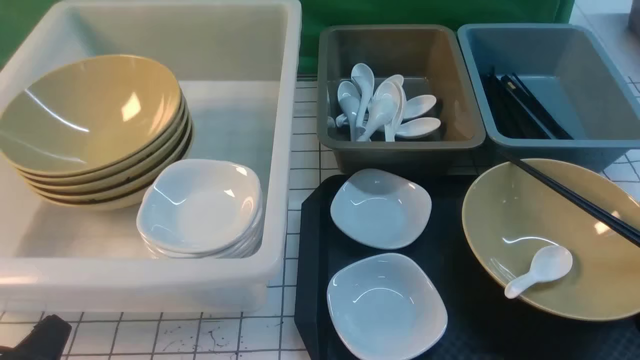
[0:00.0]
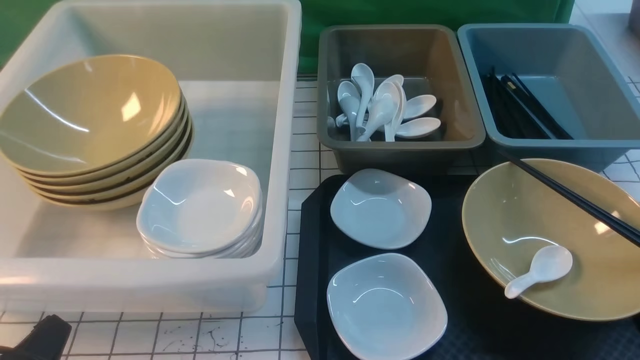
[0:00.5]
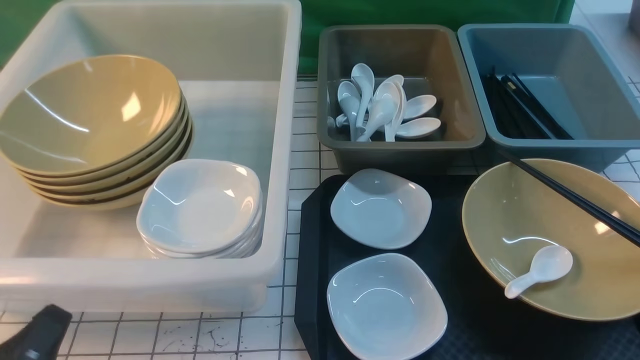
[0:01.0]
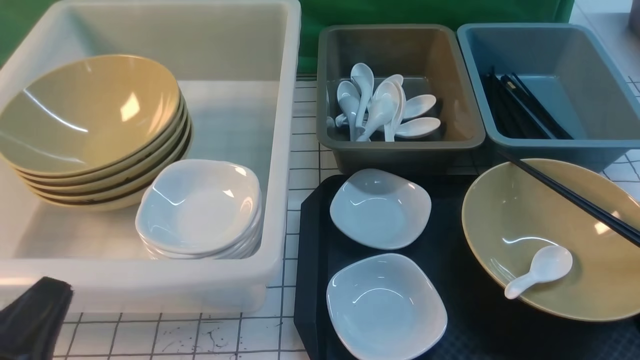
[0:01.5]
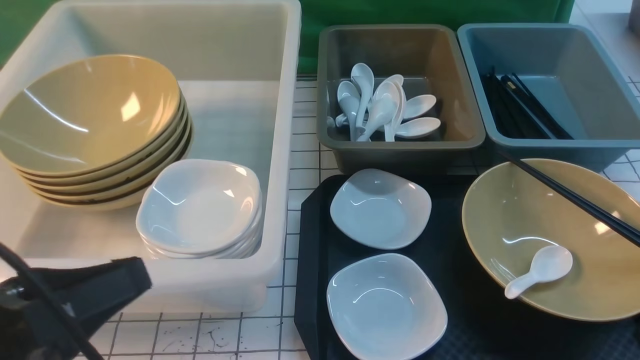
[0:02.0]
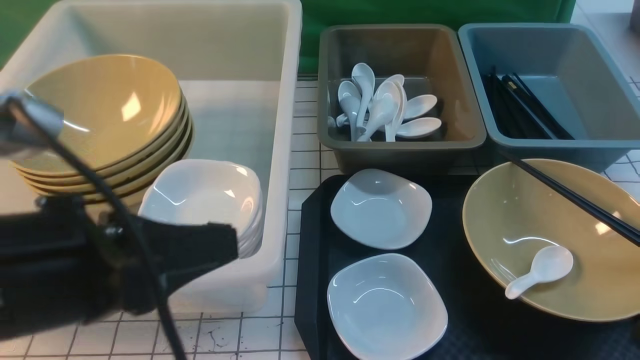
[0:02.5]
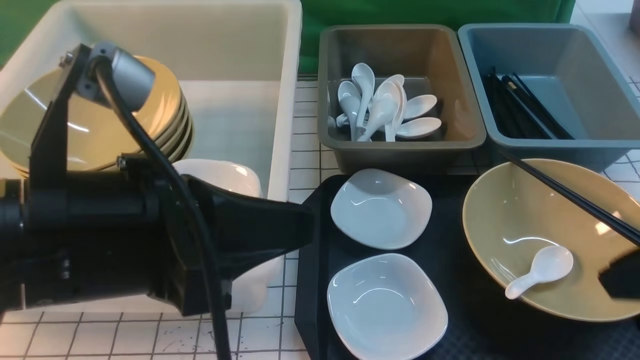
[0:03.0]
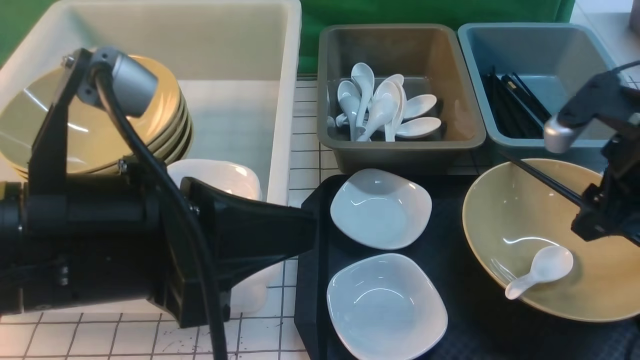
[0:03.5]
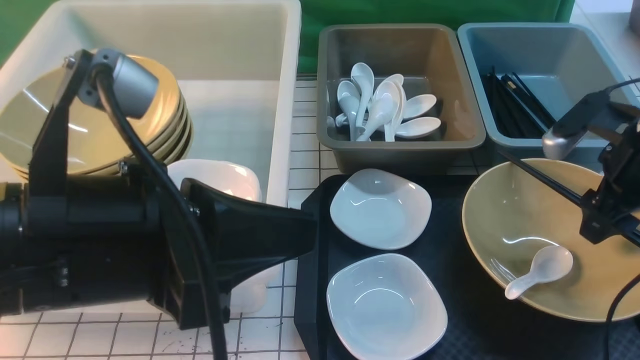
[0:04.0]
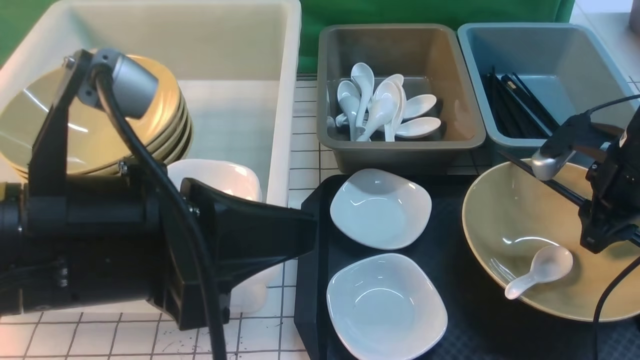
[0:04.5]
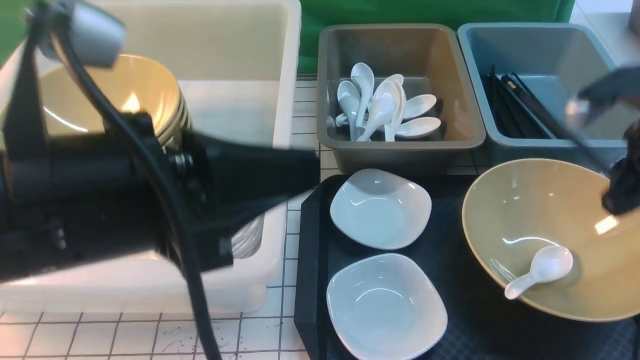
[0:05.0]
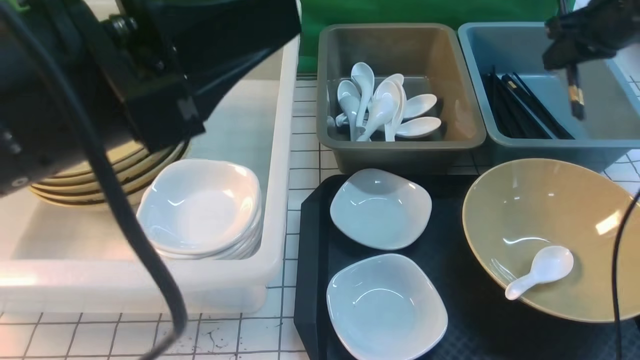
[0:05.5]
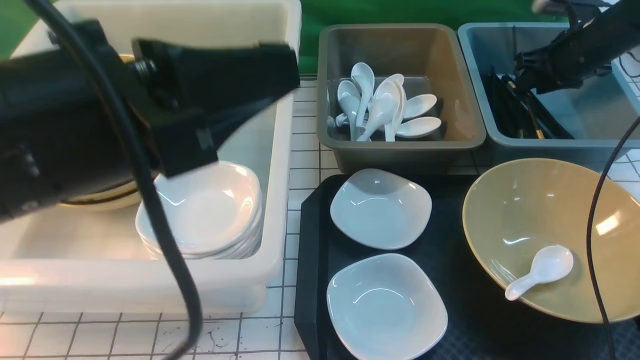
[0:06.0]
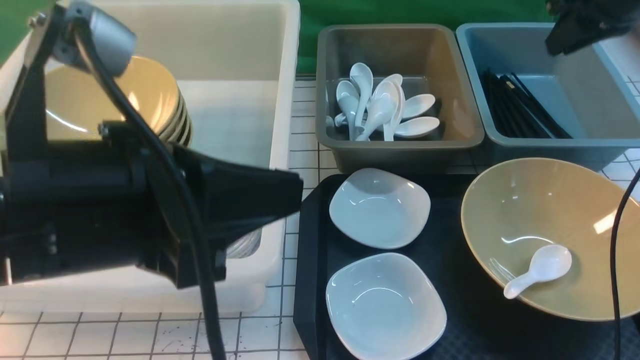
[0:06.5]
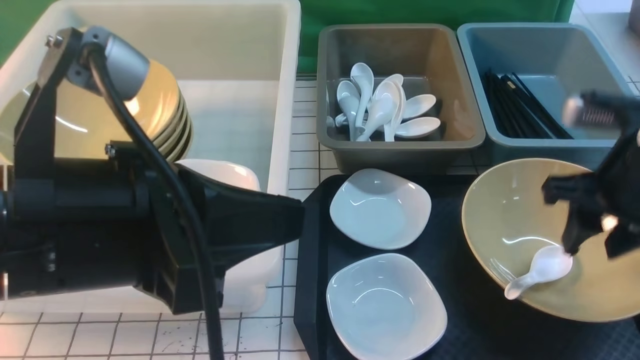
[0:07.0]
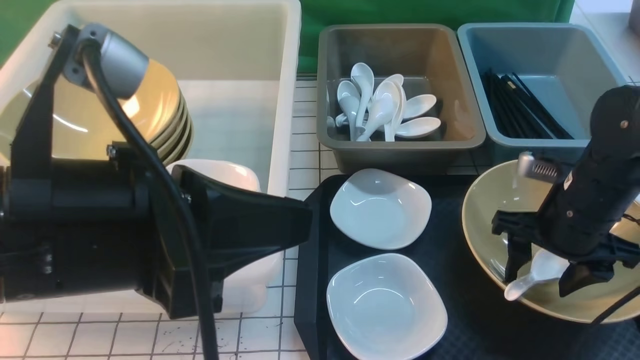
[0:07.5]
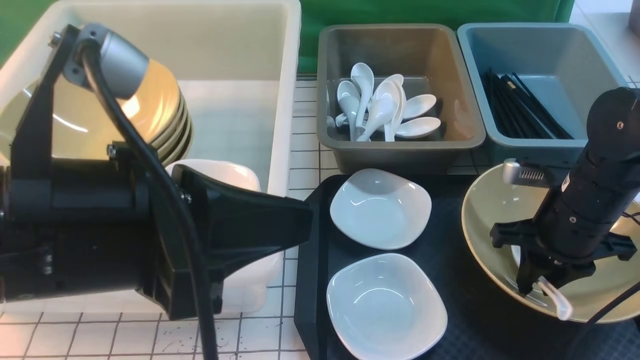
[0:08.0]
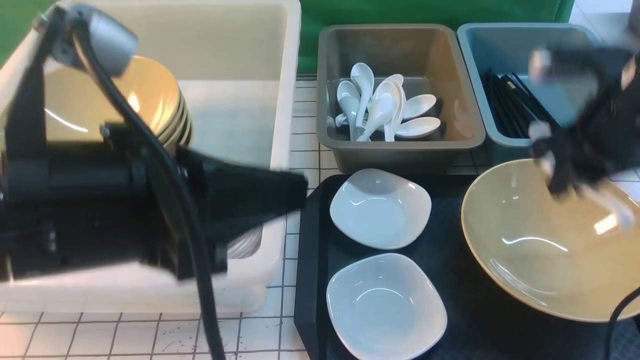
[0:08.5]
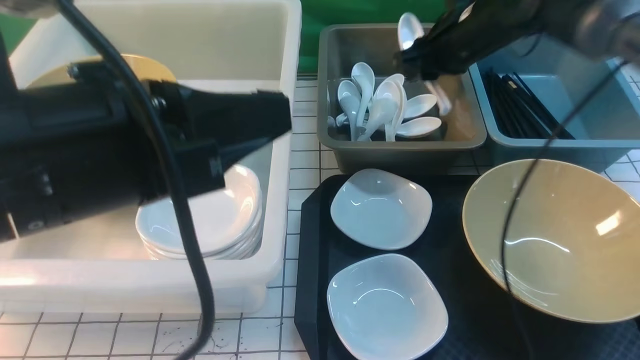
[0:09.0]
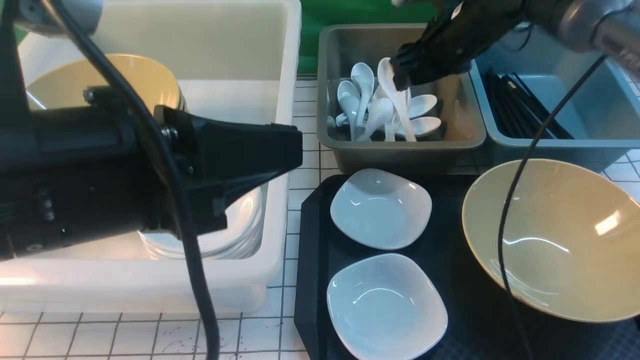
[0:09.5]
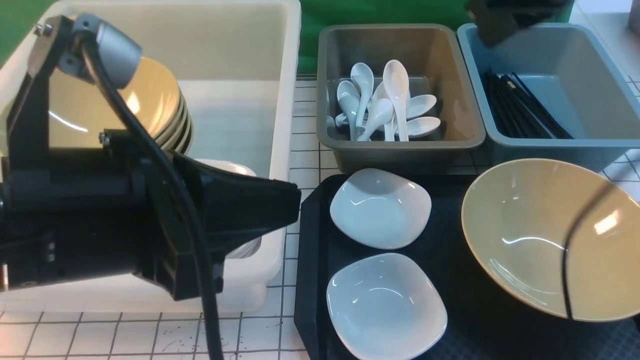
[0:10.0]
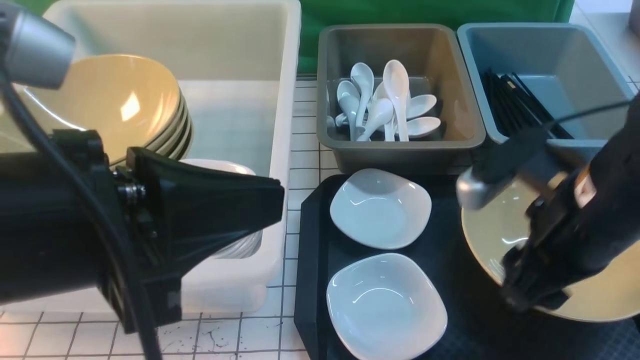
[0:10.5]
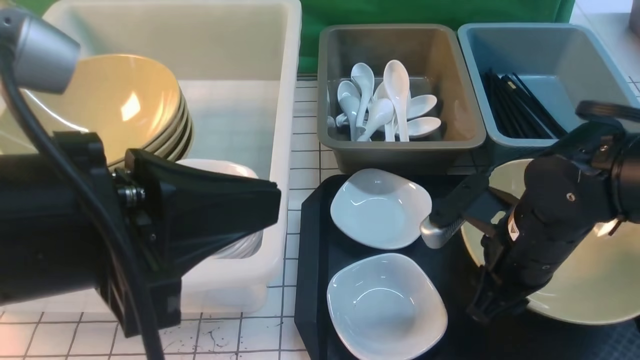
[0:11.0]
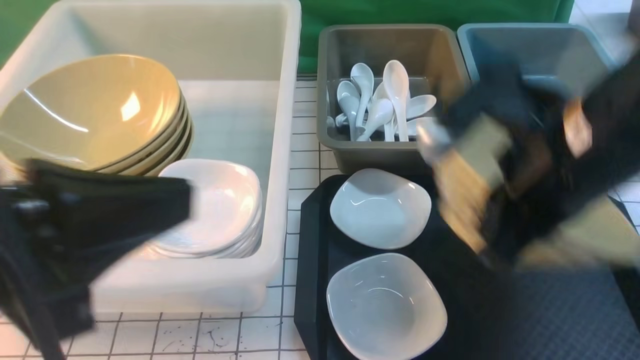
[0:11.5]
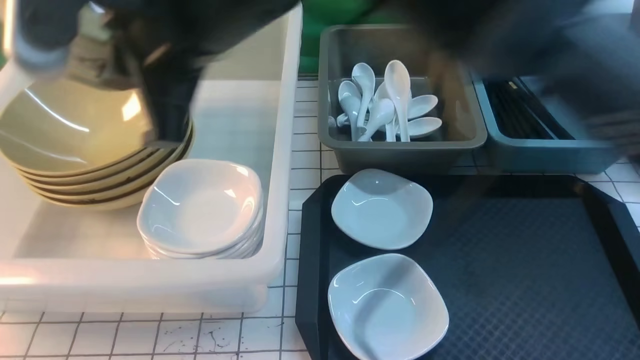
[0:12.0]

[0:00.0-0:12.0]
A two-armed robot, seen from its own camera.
Task of the whole recording: on white black table put chopsticks spoon bowls plates into blue grey white boxes.
Step, 0:00.0 to 0:05.0: use the right arm to grab the chopsticks.
Step, 0:05.5 to 0:06.0: use the right arm to put the chopsticks into the small storage box on the right.
Step, 0:06.5 to 0:08.0: use the right arm to grab the soup spoon in the middle.
Step, 0:08.5 to 0:09.0: use the right arm to put the soup spoon into the small storage box in the middle.
Step, 0:09.5 to 0:11.0: use the right arm to grab the yellow noodle bowl.
0:00.0 to 0:02.0: The left gripper goes roughly 15 cm upward.
0:02.0 to 0:04.0: The left gripper goes some 10 cm to the right and forward, while the right gripper is displaced forward by about 30 cm, and opens its fingers.
0:04.0 to 0:06.0: The right gripper shifts roughly 20 cm forward, and closes its fingers.
0:06.0 to 0:08.0: The right gripper is displaced backward and to the left by roughly 25 cm, and opens, then closes once more.
0:08.0 to 0:10.0: The right gripper moves upward, approximately 20 cm.
0:10.0 to 0:12.0: The right gripper shifts some 25 cm to the left, and opens and closes again. Meanwhile the left gripper heads to the left and backward, covering about 15 cm.

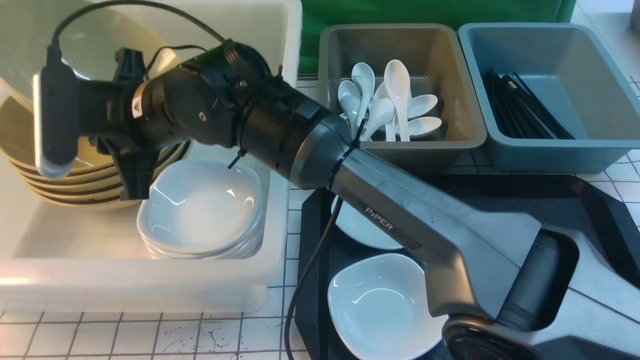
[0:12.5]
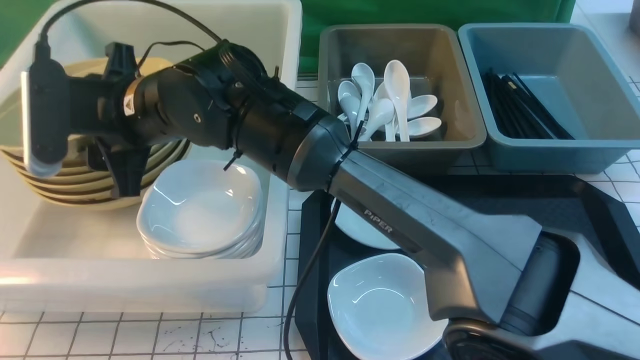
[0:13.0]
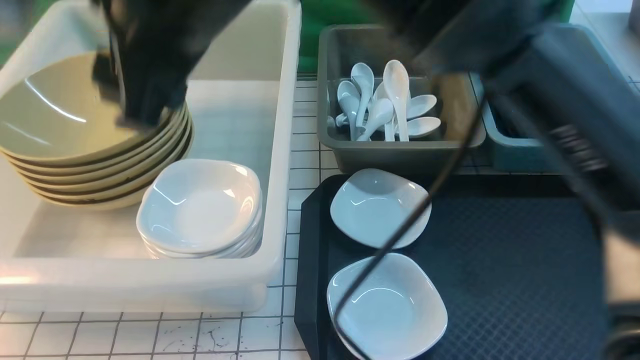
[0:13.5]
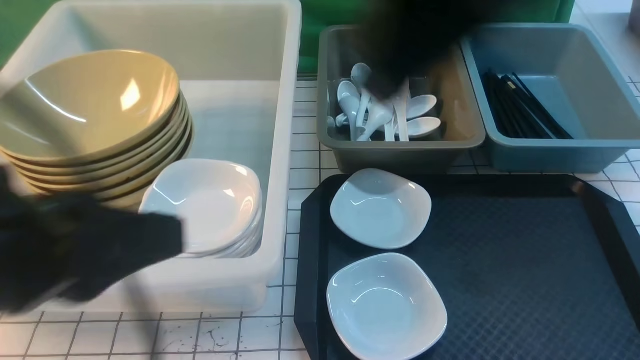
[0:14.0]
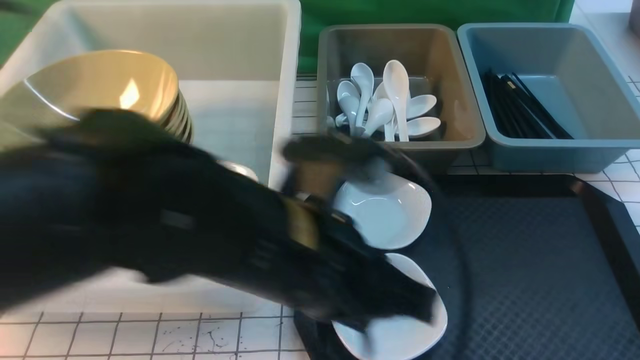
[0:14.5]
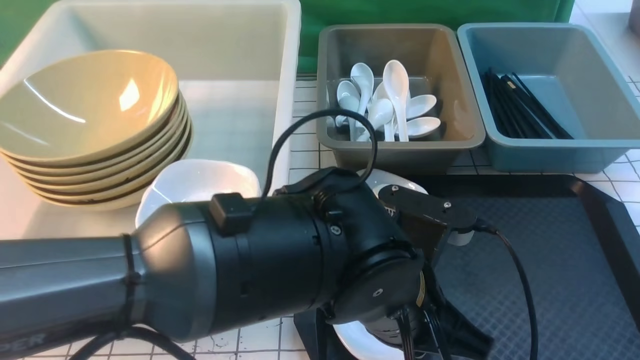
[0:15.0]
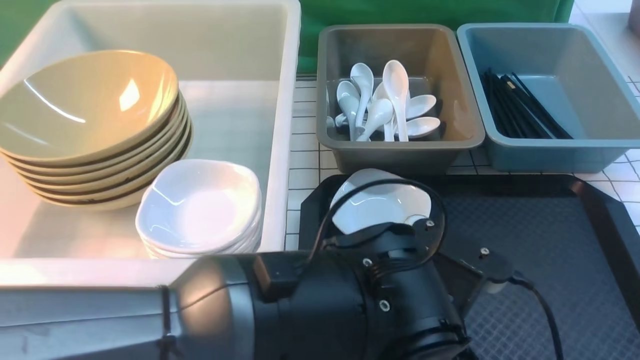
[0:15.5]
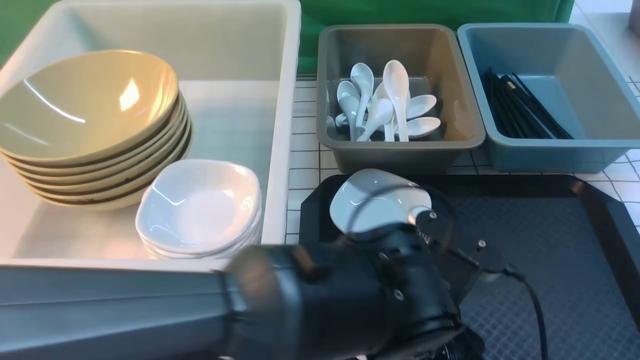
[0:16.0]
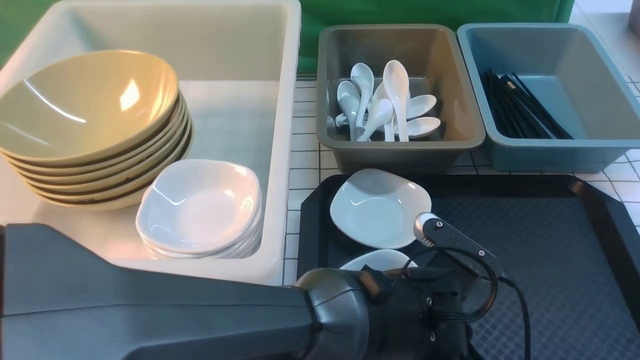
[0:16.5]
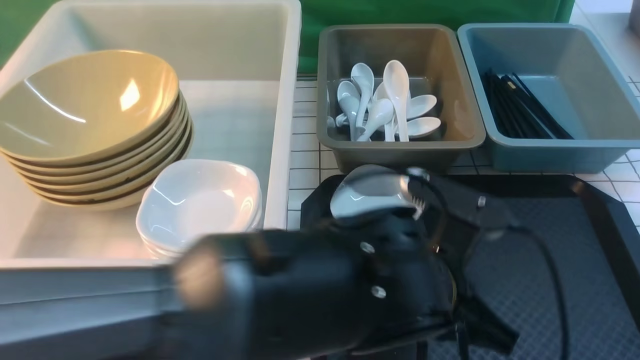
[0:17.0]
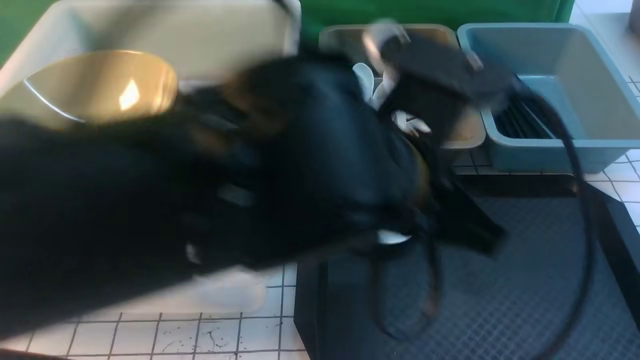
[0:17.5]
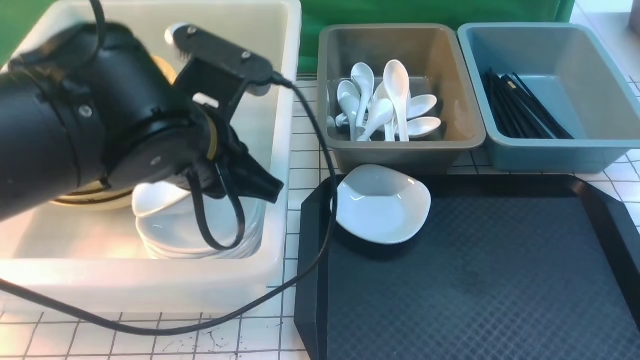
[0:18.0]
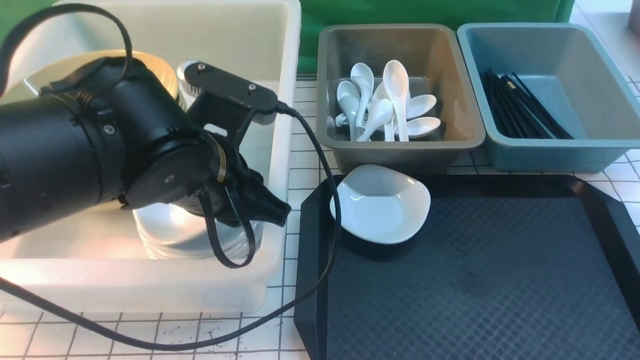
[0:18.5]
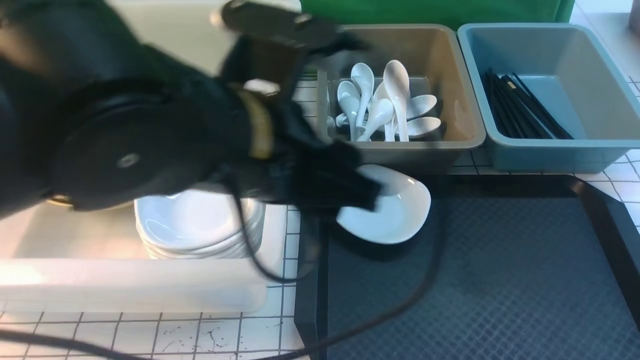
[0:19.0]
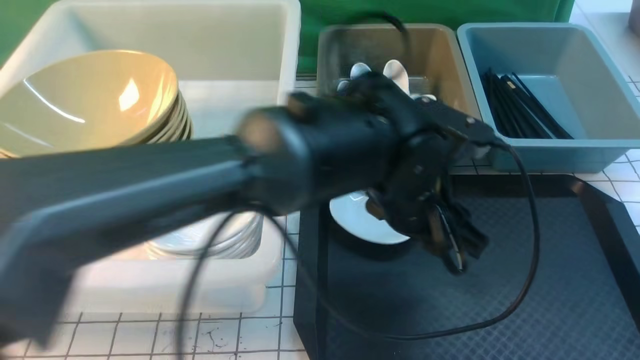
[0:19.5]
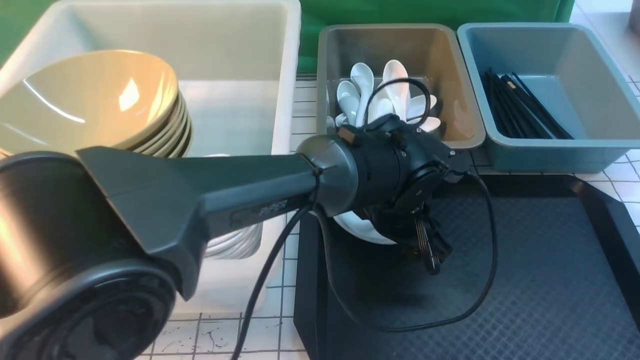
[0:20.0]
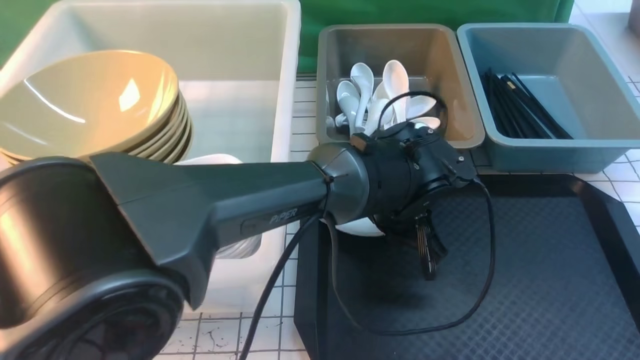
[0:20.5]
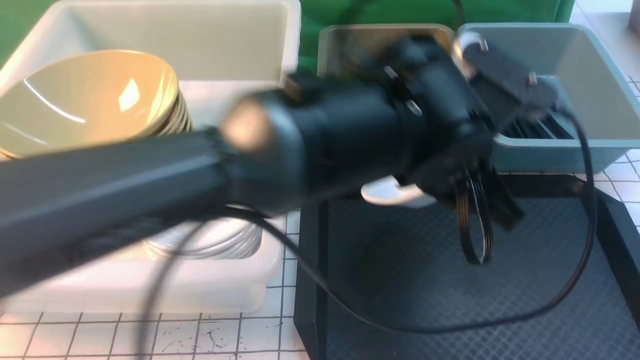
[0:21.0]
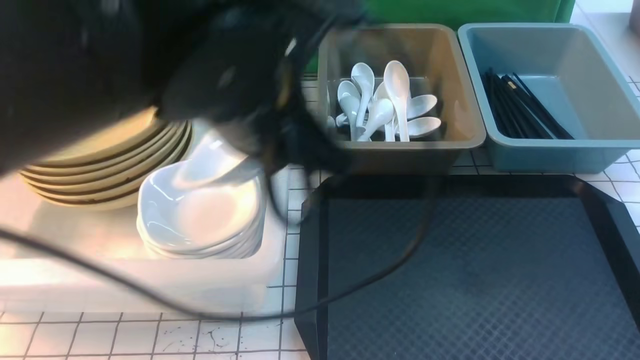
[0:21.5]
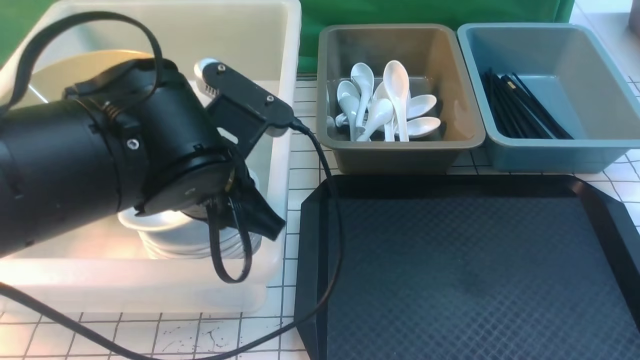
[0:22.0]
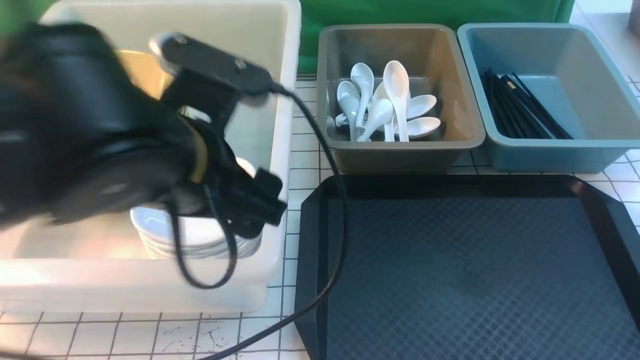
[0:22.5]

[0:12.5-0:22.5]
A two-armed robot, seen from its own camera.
Task of the whole recording: on white black table put chopsticks spoon bowls plates into blue grey white boxes.
Step, 0:13.5 to 0:17.5: use the left arm to grab the plate.
Step, 0:18.0 to 0:18.5: use the left arm to put the plate into the large storage box on the left.
Step, 0:19.0 to 0:21.0: use the left arm to grab the plate.
Step, 0:21.5 to 0:22.5: use the left arm to put the plate into the large storage box on the left.
0:12.5 to 0:14.5: The left gripper travels to the right and forward by approximately 30 cm, while the right gripper heads to the right and backward, covering approximately 50 cm, and opens and closes again.
0:14.5 to 0:16.5: The right gripper goes about 5 cm to the right. The left gripper goes about 20 cm downward and to the right, and opens its fingers.
0:16.5 to 0:18.5: The left gripper is displaced to the left and upward by roughly 20 cm, and closes, then reopens.
0:18.5 to 0:20.5: The left gripper is displaced to the right and downward by approximately 20 cm, and opens, then closes again. Meanwhile the right gripper heads to the right, covering about 5 cm.
0:20.5 to 0:22.5: The right gripper travels to the left by some 5 cm. The left gripper heads to the left, upward and backward, covering roughly 25 cm, and opens its fingers.
